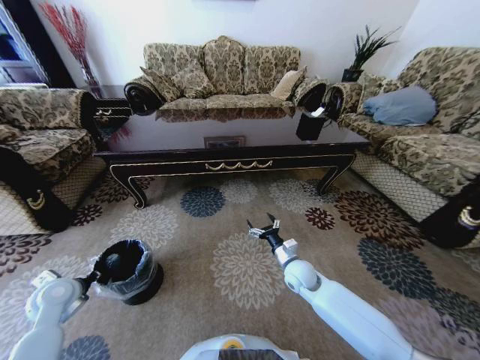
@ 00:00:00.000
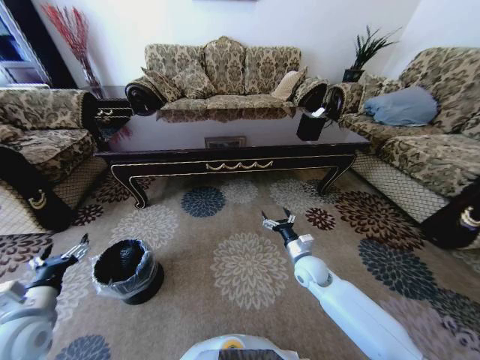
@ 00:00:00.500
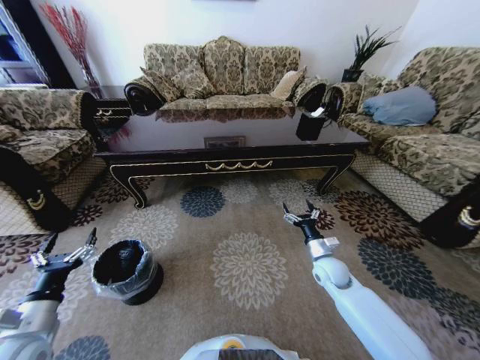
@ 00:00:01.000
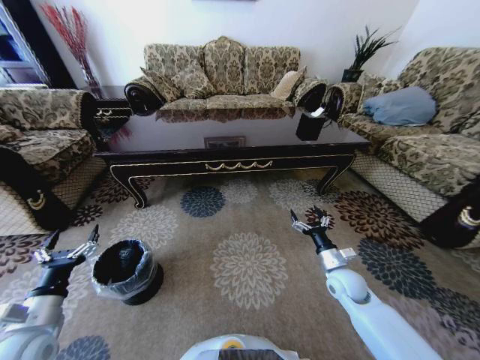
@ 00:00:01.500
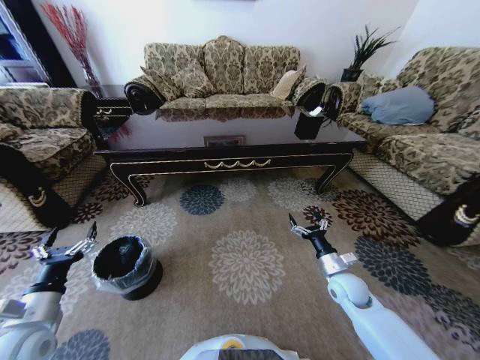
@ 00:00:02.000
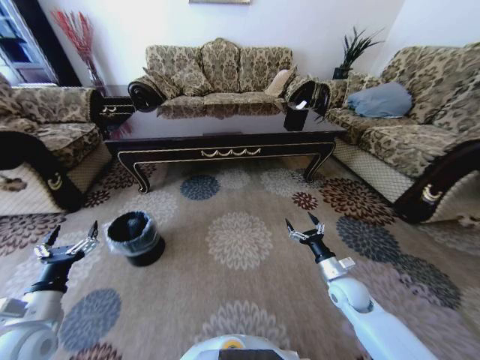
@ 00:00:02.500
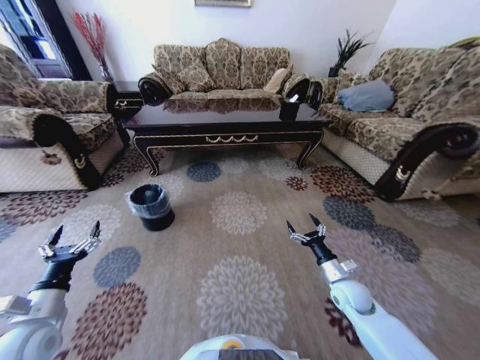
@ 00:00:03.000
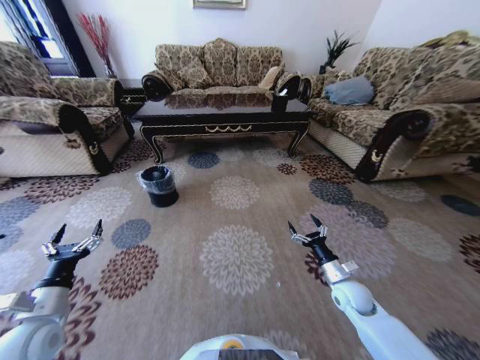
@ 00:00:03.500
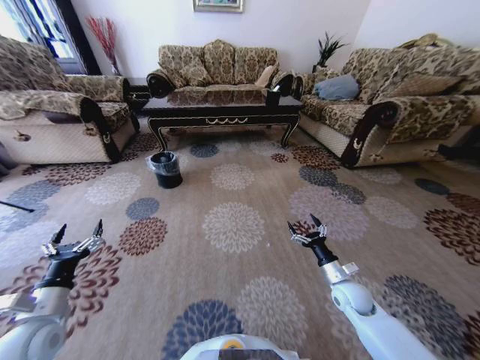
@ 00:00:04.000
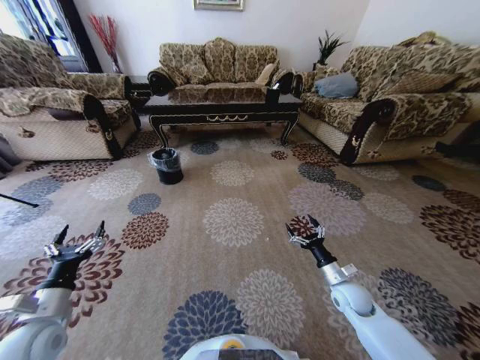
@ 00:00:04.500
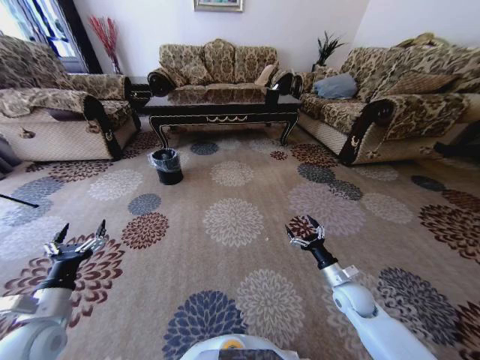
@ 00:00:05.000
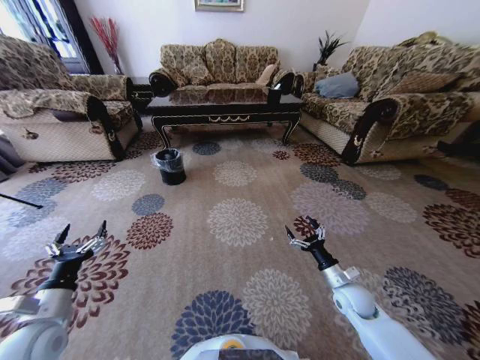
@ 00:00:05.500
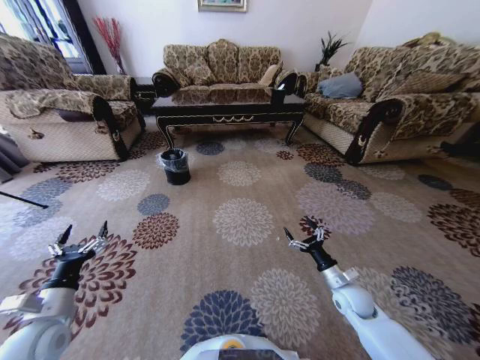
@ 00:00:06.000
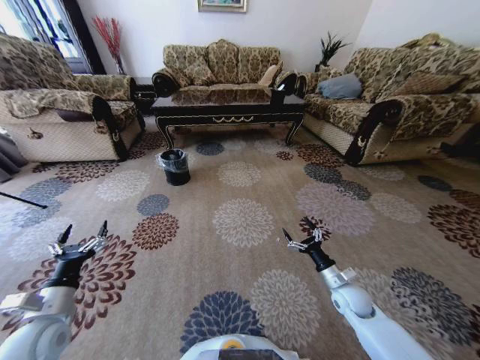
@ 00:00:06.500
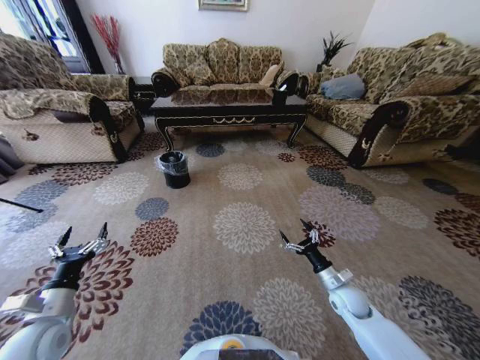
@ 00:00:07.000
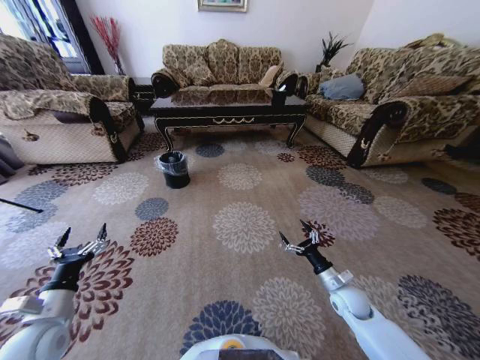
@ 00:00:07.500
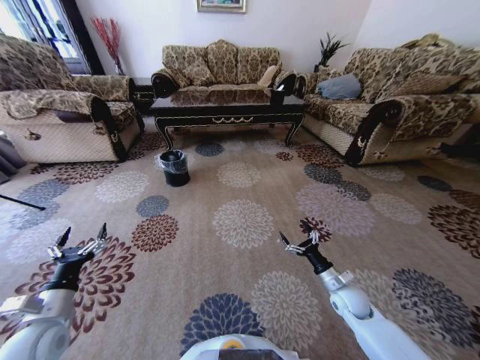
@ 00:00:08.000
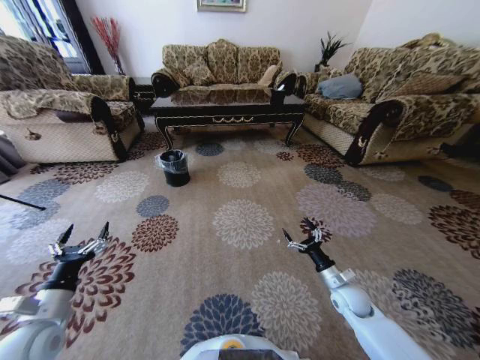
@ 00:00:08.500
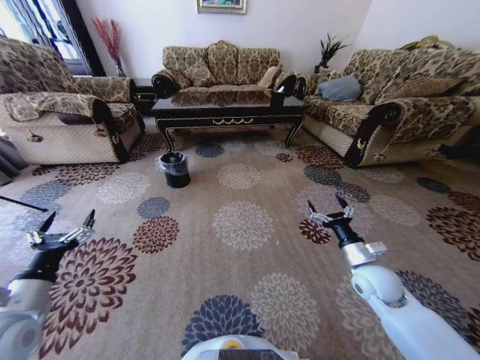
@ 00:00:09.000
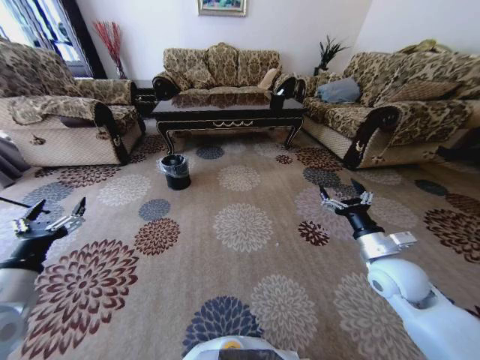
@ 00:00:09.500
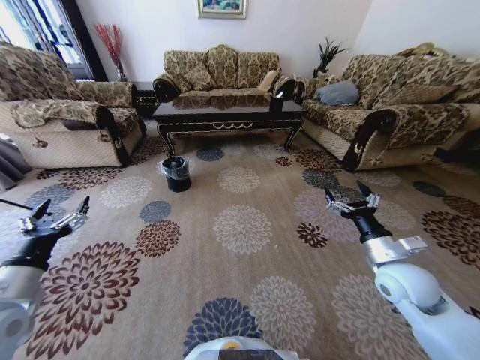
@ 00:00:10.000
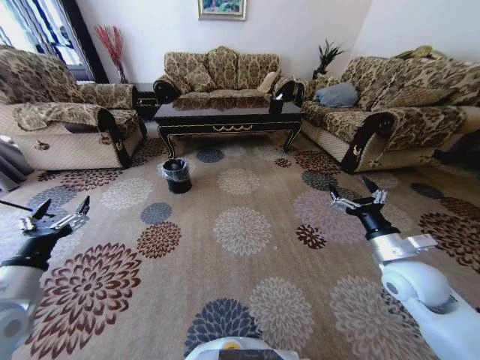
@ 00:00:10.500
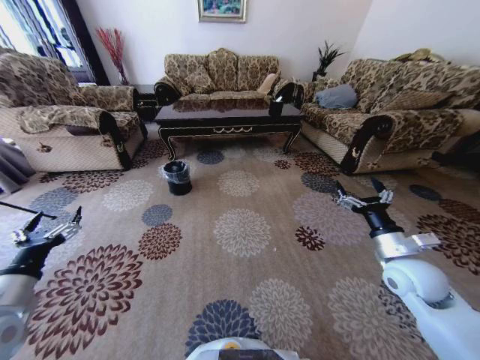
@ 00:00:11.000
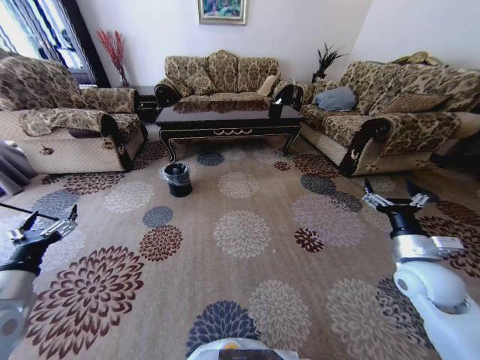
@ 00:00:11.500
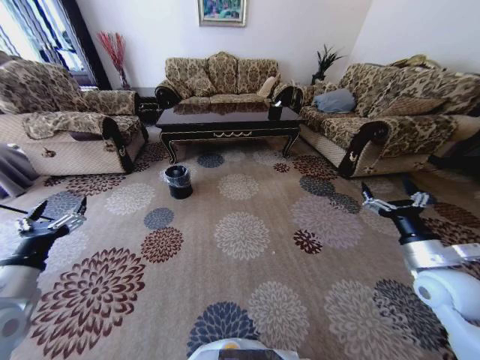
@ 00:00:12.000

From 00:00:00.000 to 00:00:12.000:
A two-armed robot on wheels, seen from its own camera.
Task of the whole recording: Move to the front of the table and pick up the trash from the floor, then place it into the trash bin.
From 00:00:00.000 to 00:00:02.000: The right gripper heads to the right, covering about 15 cm. Meanwhile the left gripper goes some 10 cm backward, and opens up.
From 00:00:06.000 to 00:00:08.000: There are only small adjustments of the grippers.
From 00:00:08.000 to 00:00:10.000: The left gripper shifts roughly 10 cm upward; the right gripper heads upward, covering roughly 20 cm.
From 00:00:10.000 to 00:00:12.000: The right gripper moves to the right, roughly 5 cm.

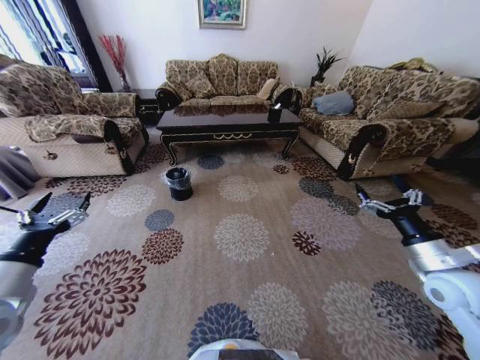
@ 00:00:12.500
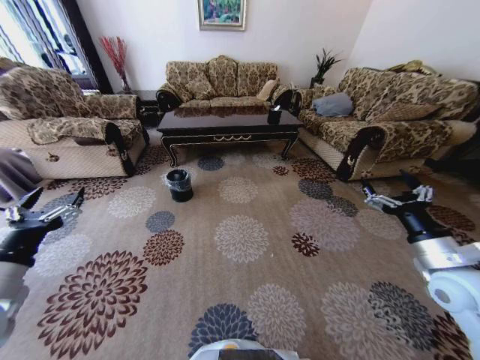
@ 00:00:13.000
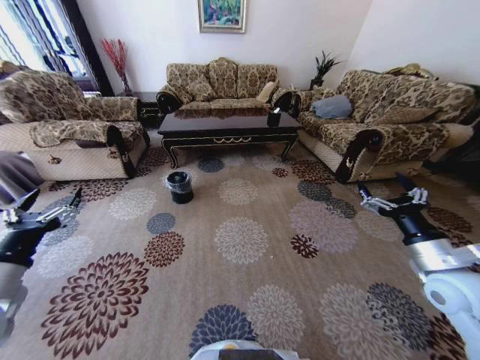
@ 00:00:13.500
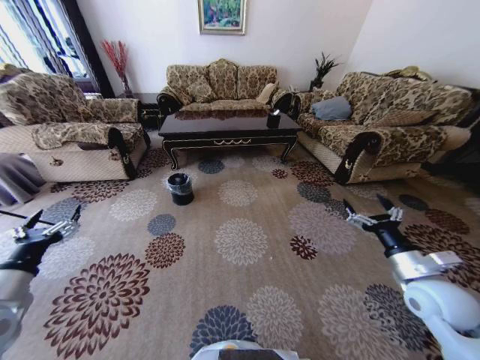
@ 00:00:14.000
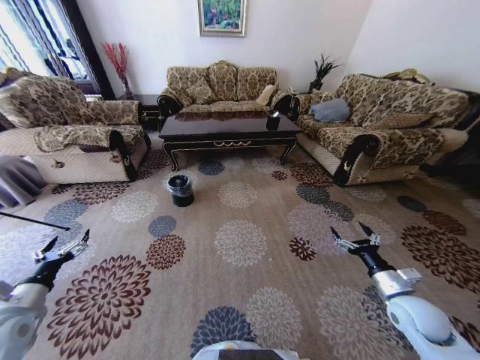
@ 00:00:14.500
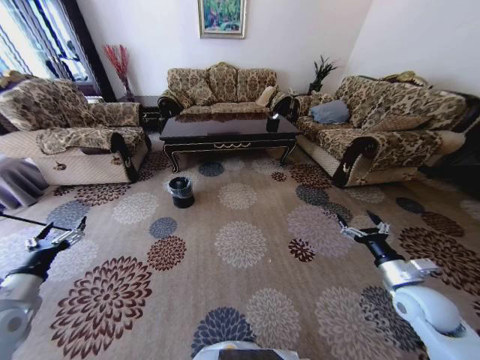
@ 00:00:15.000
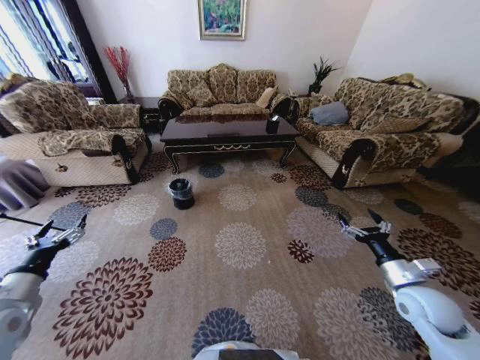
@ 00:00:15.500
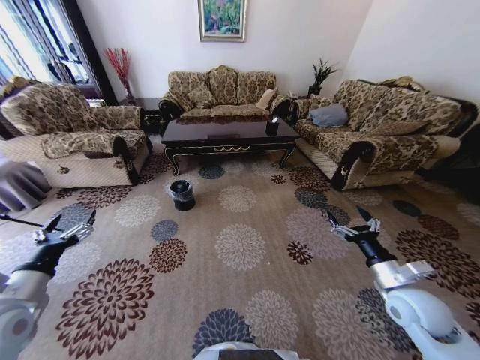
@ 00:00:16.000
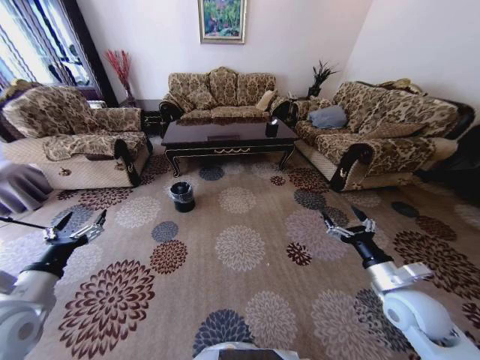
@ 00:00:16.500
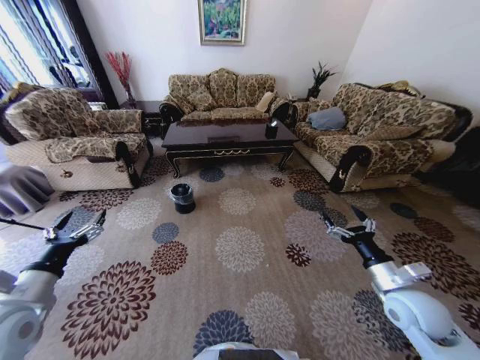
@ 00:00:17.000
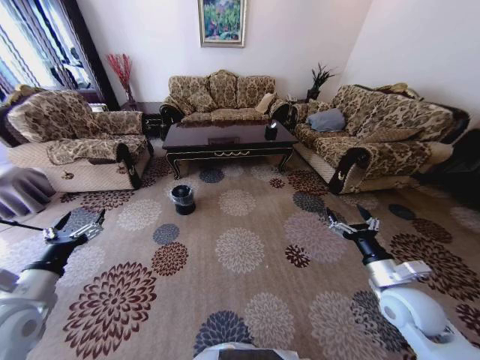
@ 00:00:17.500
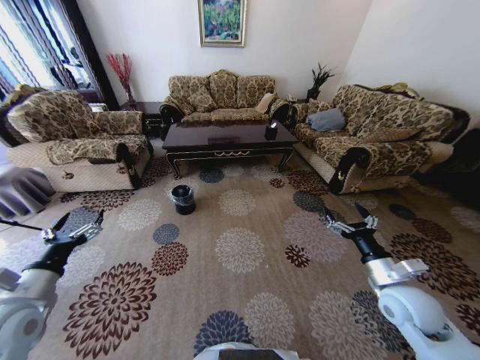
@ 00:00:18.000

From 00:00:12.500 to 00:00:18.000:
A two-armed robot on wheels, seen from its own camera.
Task of the whole recording: Move to the front of the table and pick up the trash from the floor, then place it into the trash bin.
From 00:00:12.500 to 00:00:14.500: The right gripper shifts some 15 cm downward. The left gripper shifts approximately 10 cm downward and to the left.
From 00:00:14.500 to 00:00:16.000: The right gripper shifts by some 5 cm. Meanwhile the left gripper travels upward by roughly 5 cm.
